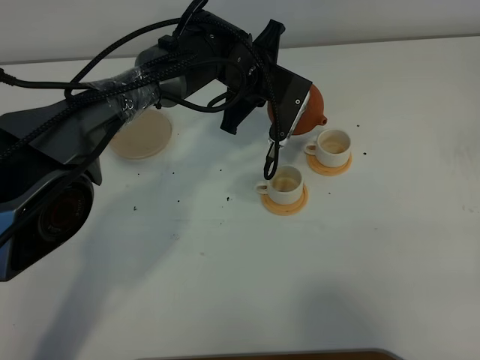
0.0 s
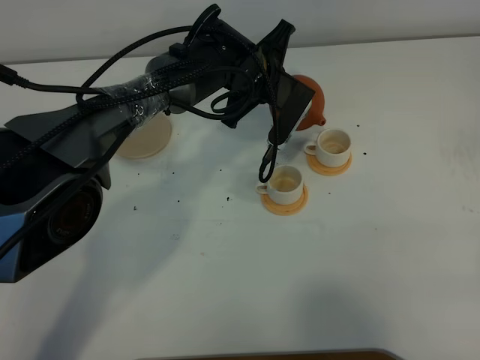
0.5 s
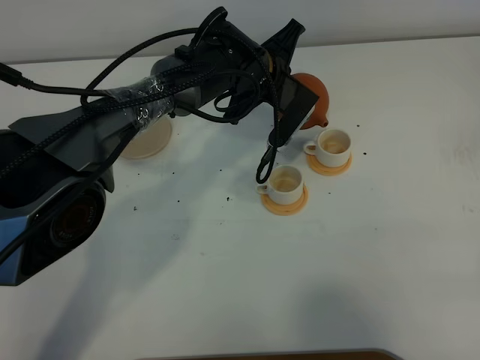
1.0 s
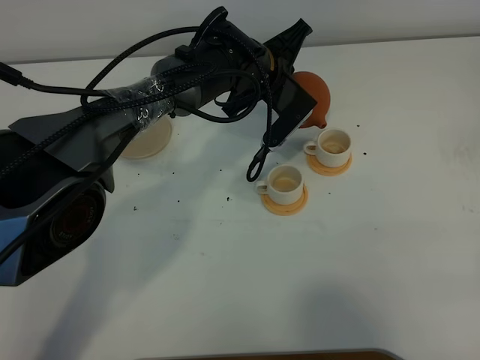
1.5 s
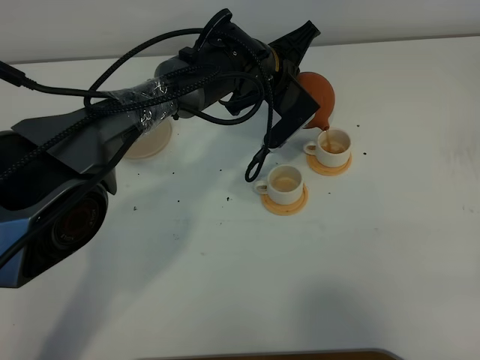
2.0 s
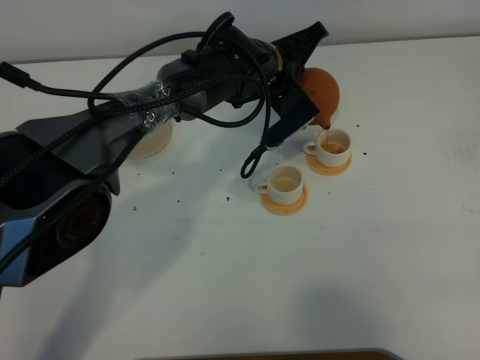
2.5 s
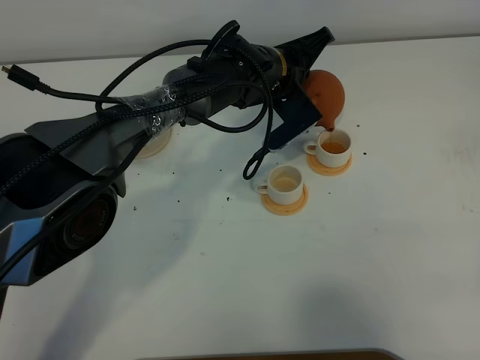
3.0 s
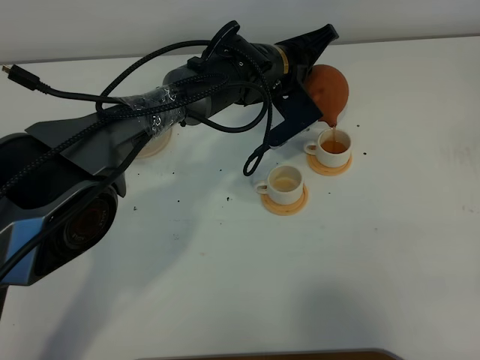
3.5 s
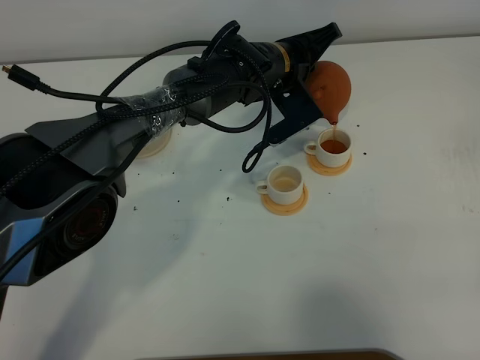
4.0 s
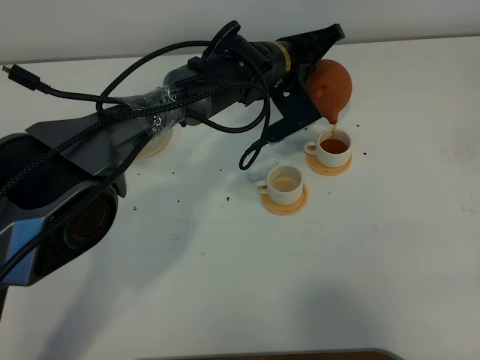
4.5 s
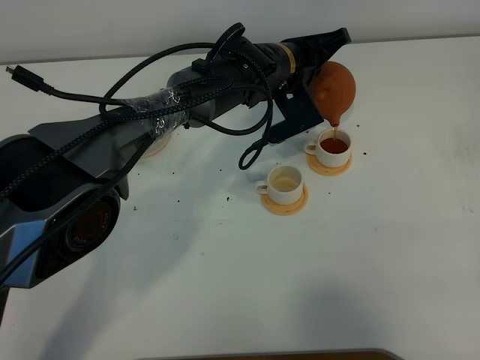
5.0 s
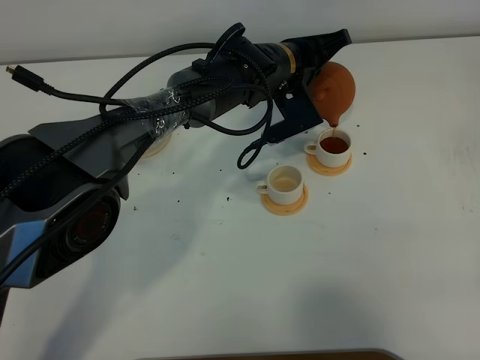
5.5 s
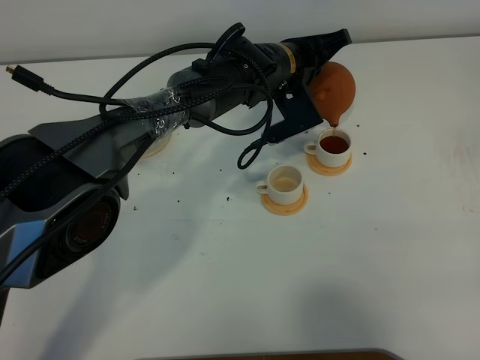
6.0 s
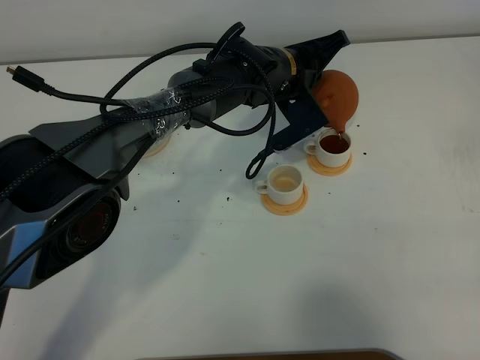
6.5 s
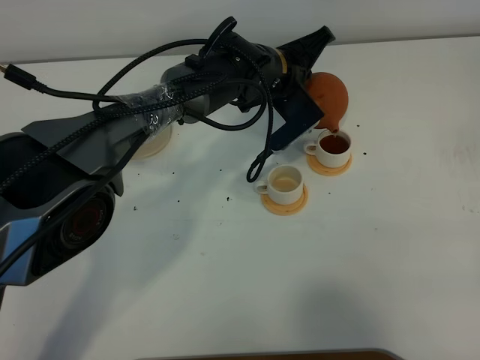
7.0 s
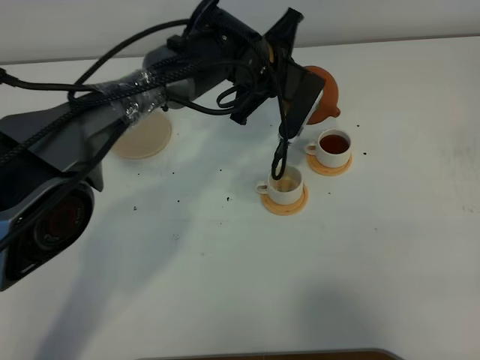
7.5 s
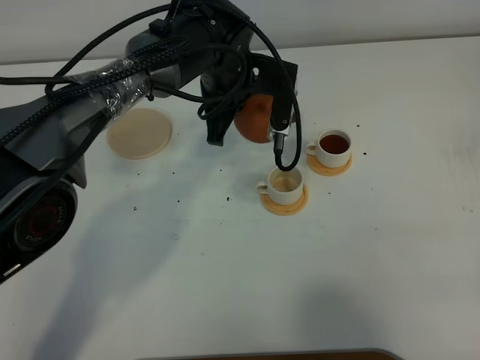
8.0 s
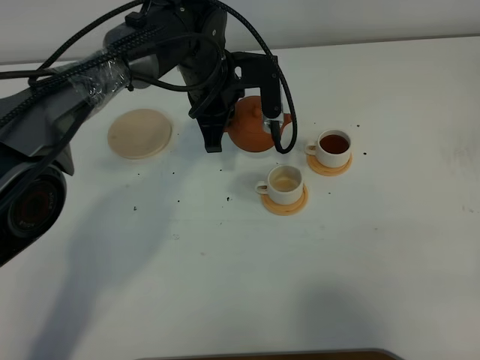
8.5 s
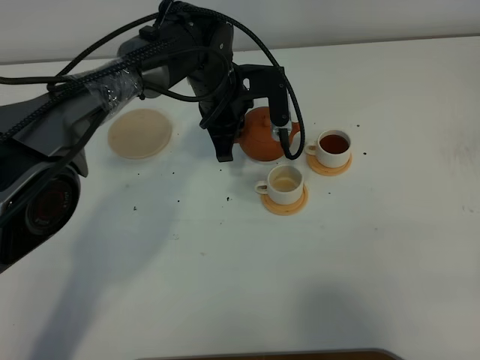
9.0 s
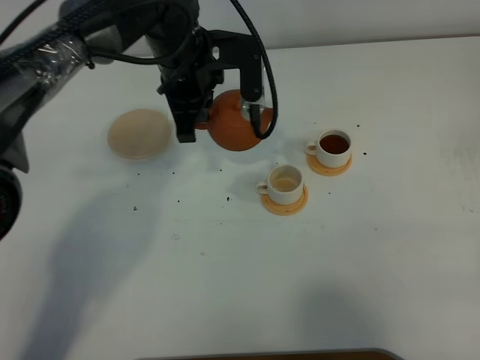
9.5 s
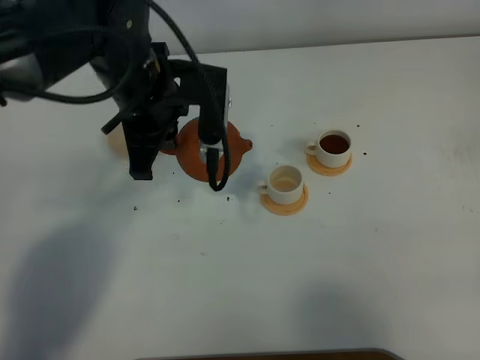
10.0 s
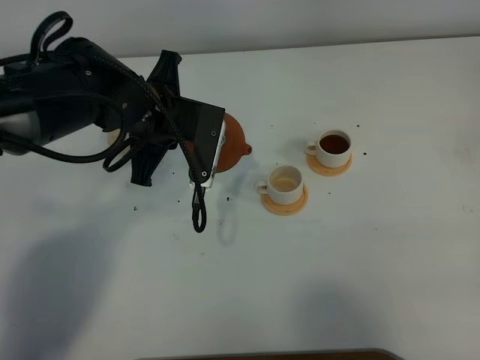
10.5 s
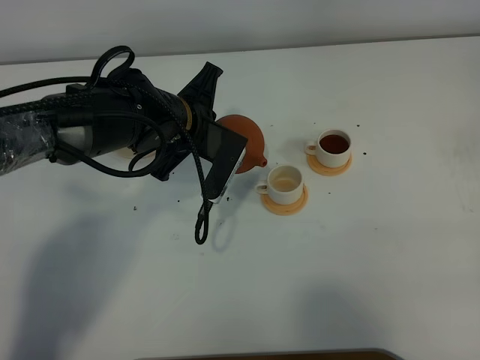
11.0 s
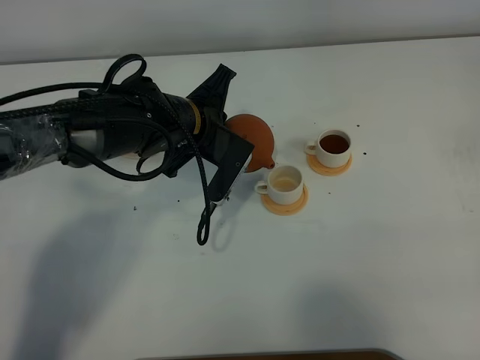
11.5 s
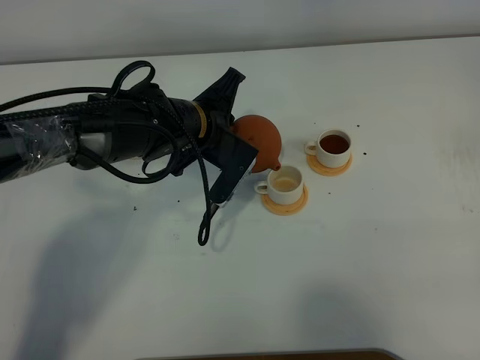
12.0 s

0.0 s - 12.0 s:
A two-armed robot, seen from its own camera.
Task of the whole recording: grasp the brown teapot and pour the tea into the two white teacups one by one, put the brown teapot back in its original place.
Step, 0.0 s - 7.5 s: Pour tea into the teacup with the left gripper.
2.0 s - 4.0 s: The grippers stay close to where they were, moving slightly.
4.0 s - 6.0 s: There are only small adjustments of the grippers.
6.0 s - 8.0 s: The left gripper goes some 5 cm to the left.
8.0 s - 10.0 s: The left gripper travels to the left, backward and upward by some 15 cm.
10.0 s - 12.0 s: The left gripper travels downward by approximately 10 cm.

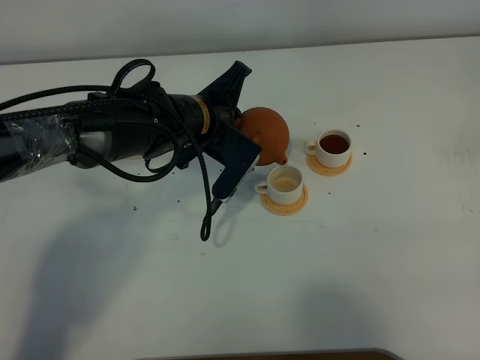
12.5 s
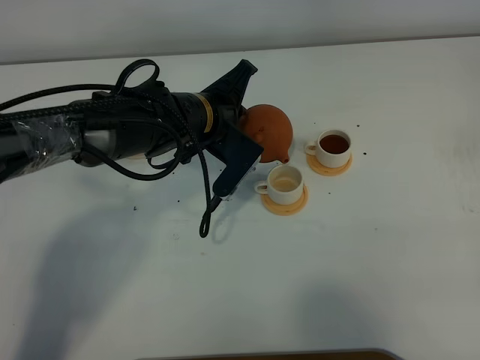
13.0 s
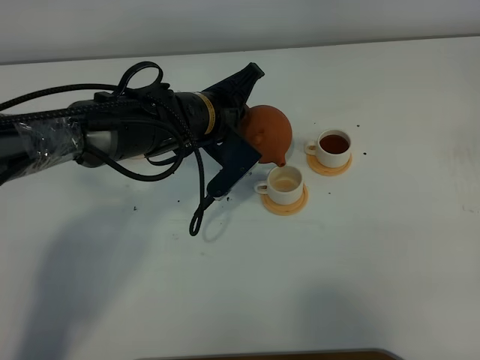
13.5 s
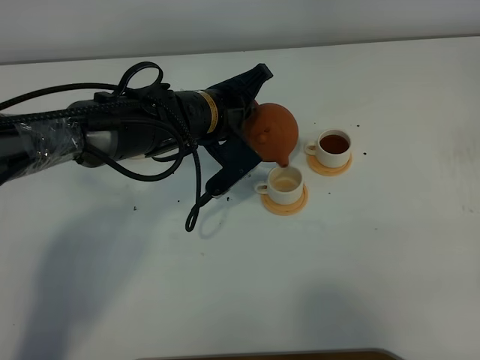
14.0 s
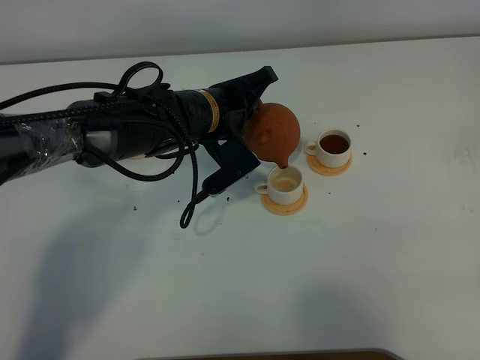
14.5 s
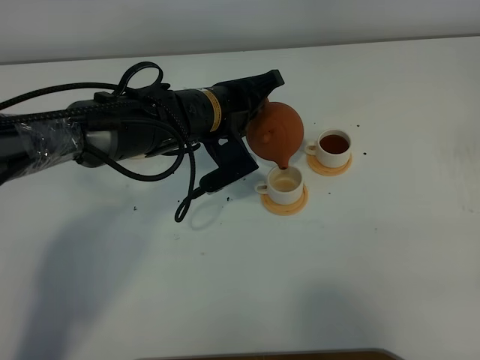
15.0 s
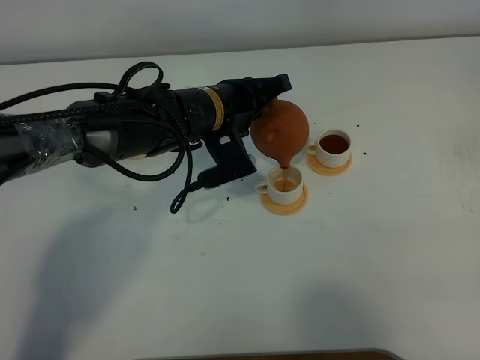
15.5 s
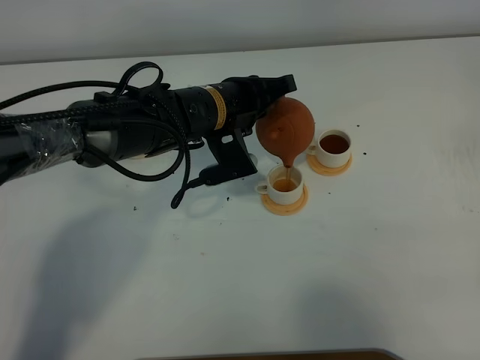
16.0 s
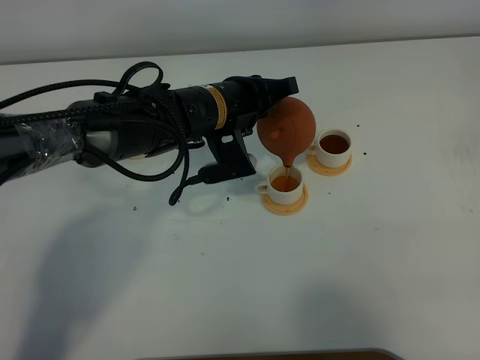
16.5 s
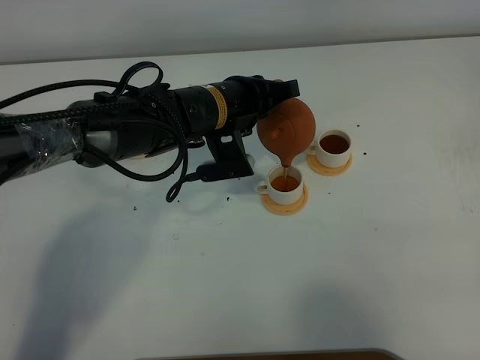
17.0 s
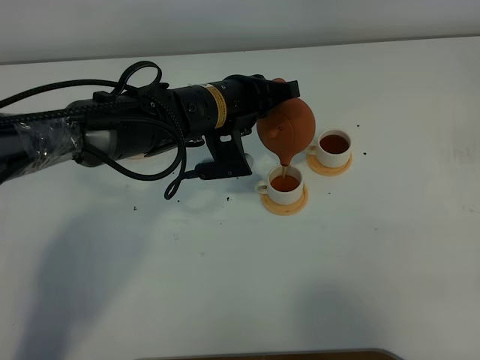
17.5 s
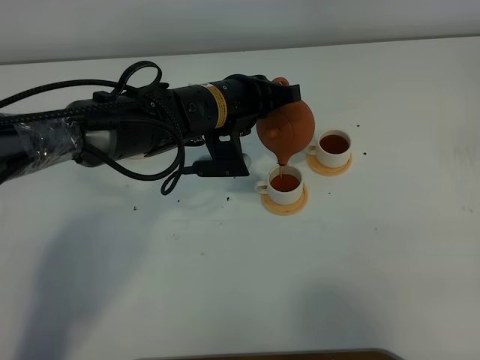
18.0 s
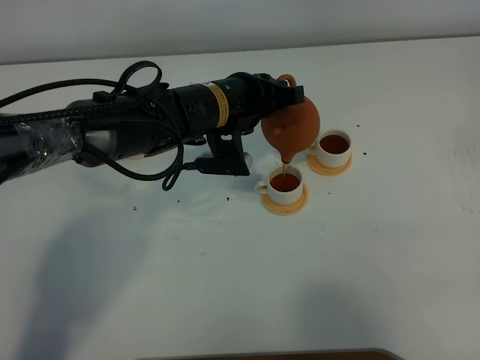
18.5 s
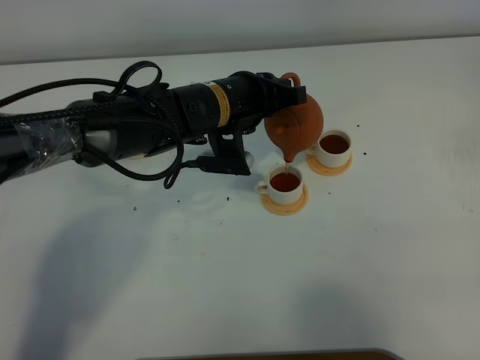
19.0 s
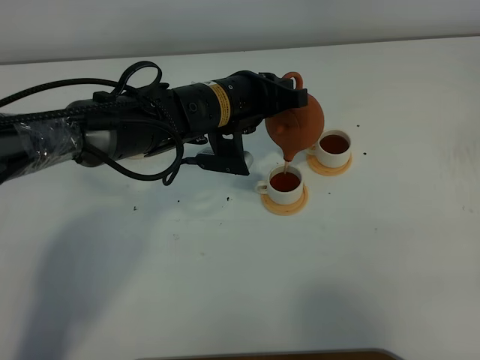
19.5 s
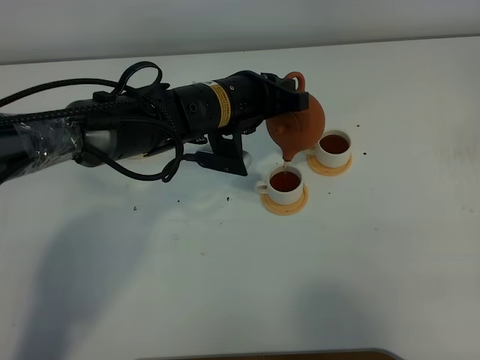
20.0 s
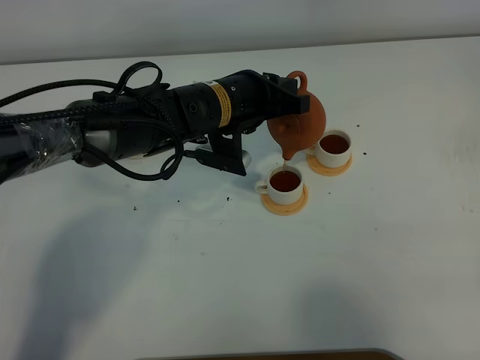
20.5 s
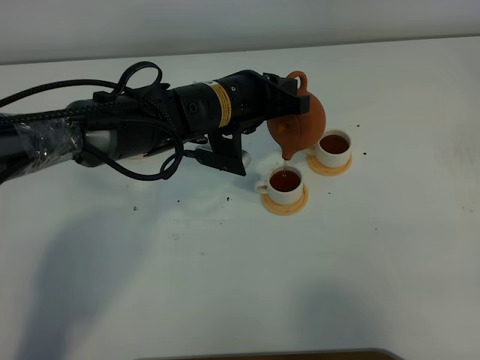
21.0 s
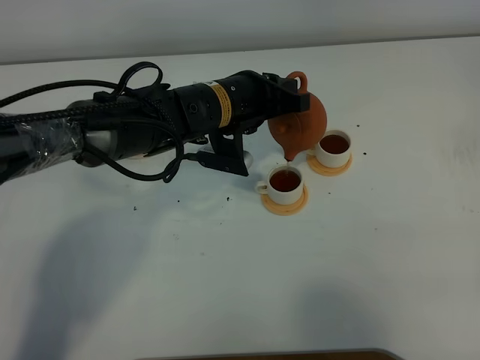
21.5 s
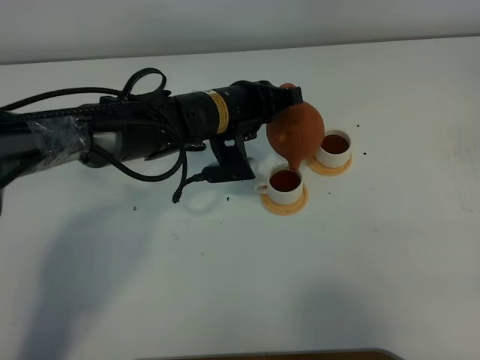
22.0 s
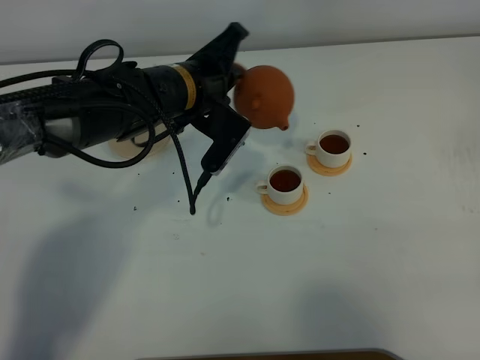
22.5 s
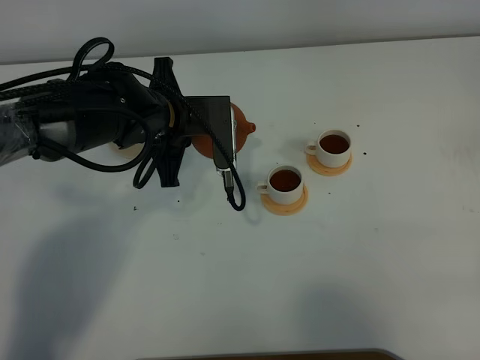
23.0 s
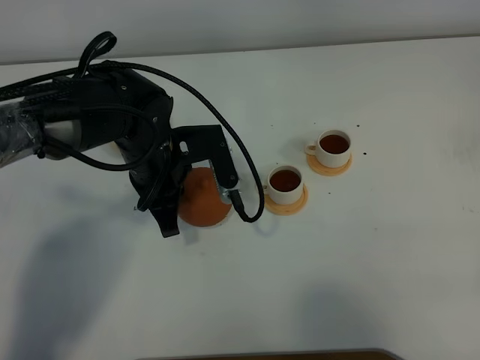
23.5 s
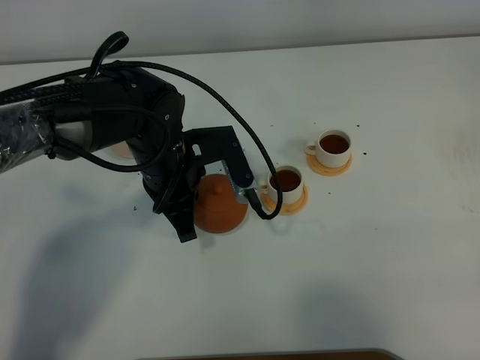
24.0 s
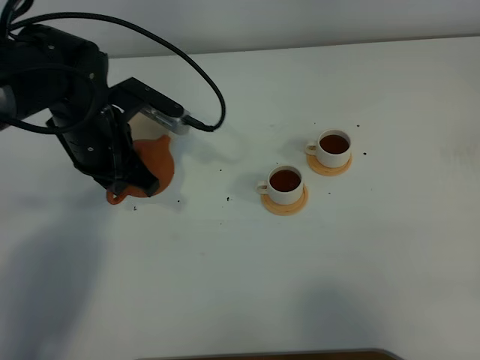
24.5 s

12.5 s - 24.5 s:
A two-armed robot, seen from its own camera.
Task of the whole recording: grasp the brown teapot and pour the tea into the two white teacups one by one, put the brown teapot back in its original place.
Step, 12.5 s - 22.5 s: Pour tea into the teacup with the left gripper.
16.5 s - 18.5 s: The grippers stay close to where they were, moving slightly.
18.5 s - 20.5 s: The grippers make only small movements.
20.5 s - 22.5 s: The left gripper ends up roughly 5 cm from where it was.
22.5 s - 24.5 s: The left gripper travels to the left by roughly 10 cm.

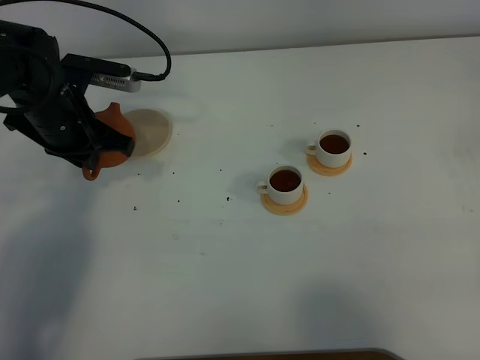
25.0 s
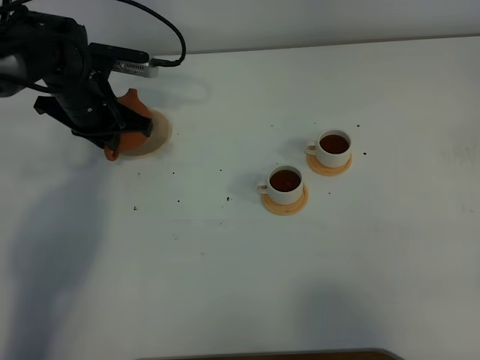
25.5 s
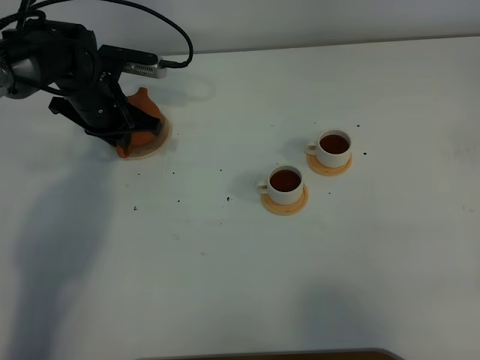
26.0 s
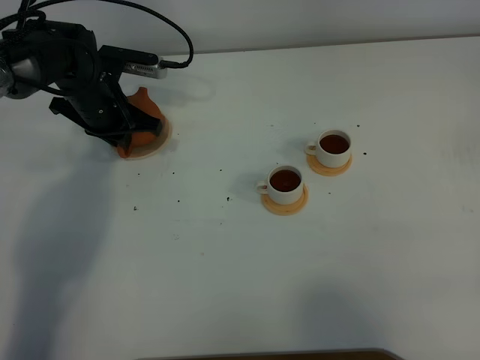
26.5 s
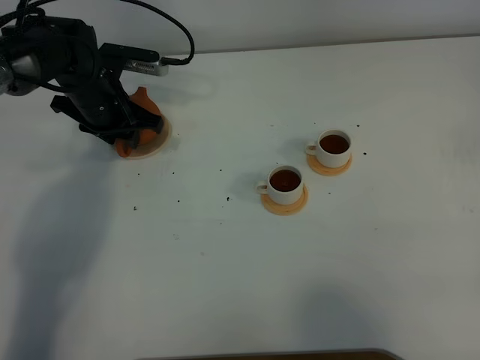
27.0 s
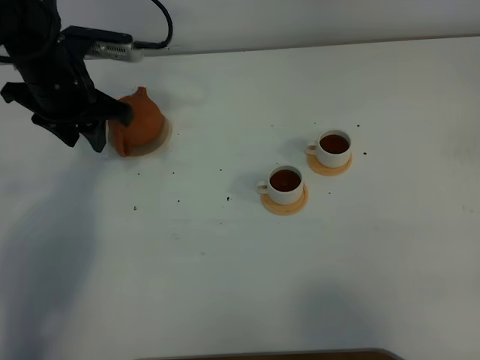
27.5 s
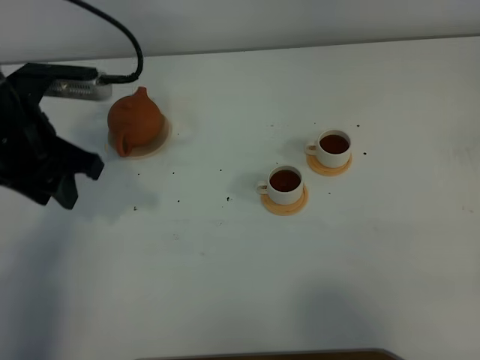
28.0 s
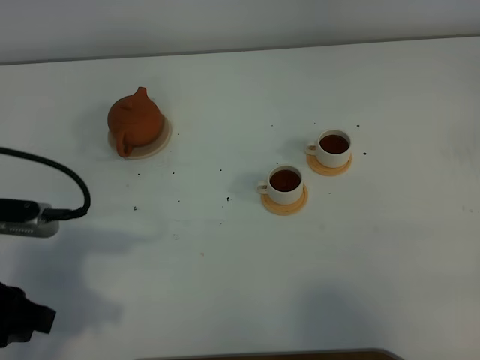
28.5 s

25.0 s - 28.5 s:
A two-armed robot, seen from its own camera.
Task of the whole recording: grasp the brown teapot and pour the tea into the two white teacups one by one, put the brown teapot back in its original place.
25.0 s - 27.0 s: The left gripper moves forward, about 5 cm, and opens.
27.0 s - 28.5 s: The left gripper moves backward, some 30 cm.
